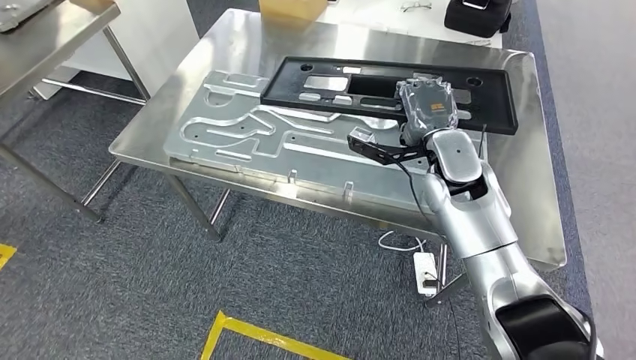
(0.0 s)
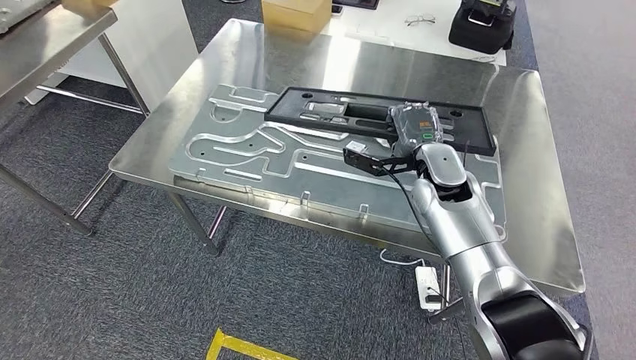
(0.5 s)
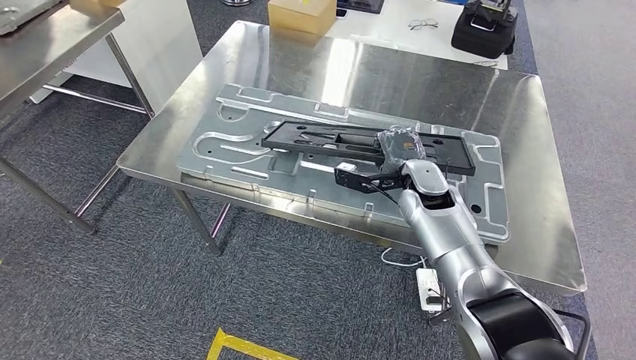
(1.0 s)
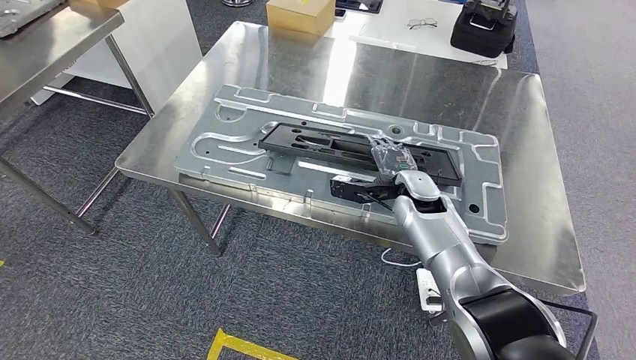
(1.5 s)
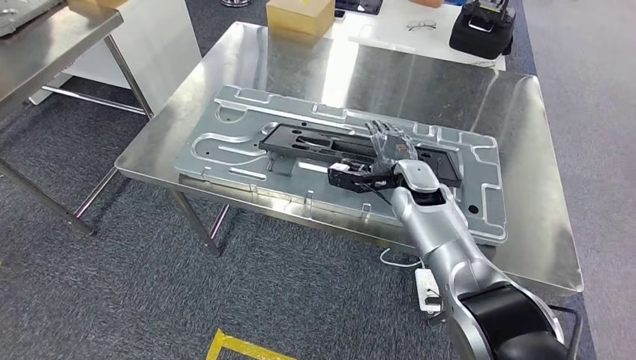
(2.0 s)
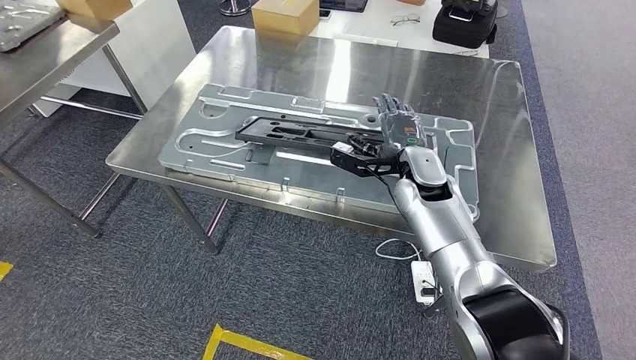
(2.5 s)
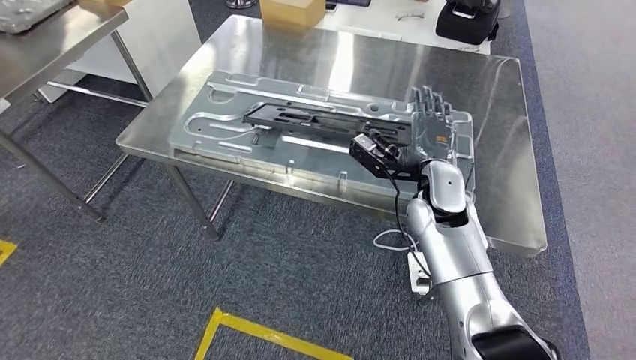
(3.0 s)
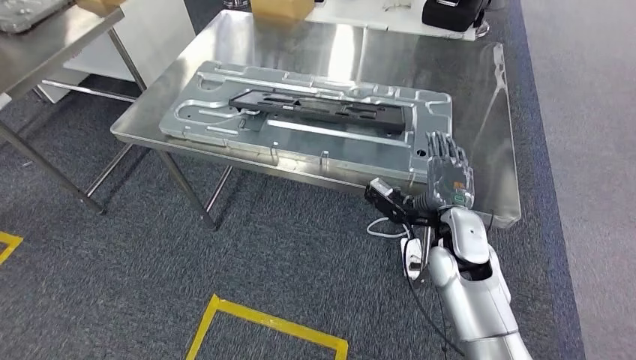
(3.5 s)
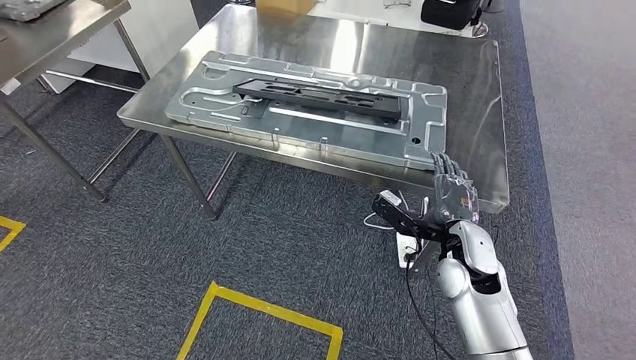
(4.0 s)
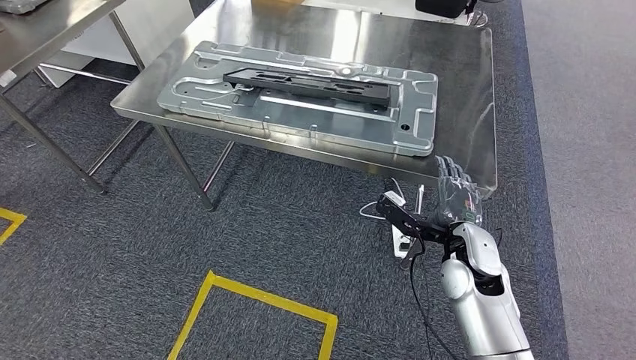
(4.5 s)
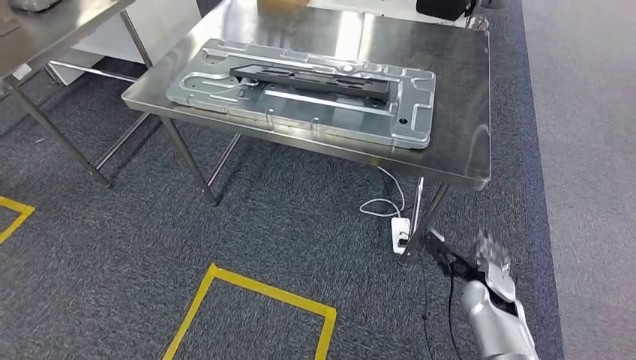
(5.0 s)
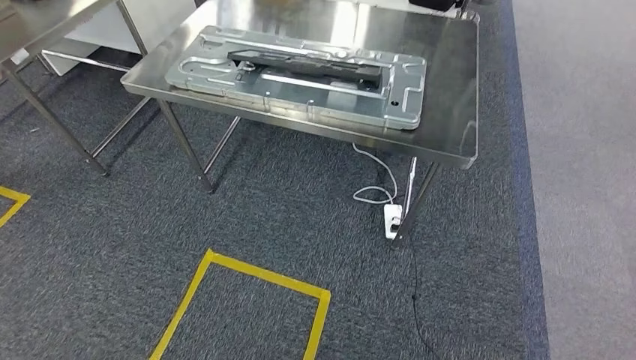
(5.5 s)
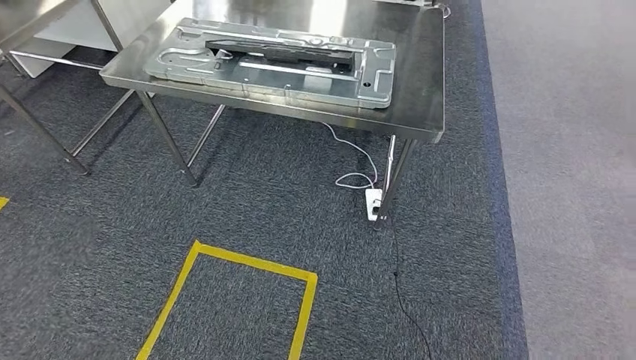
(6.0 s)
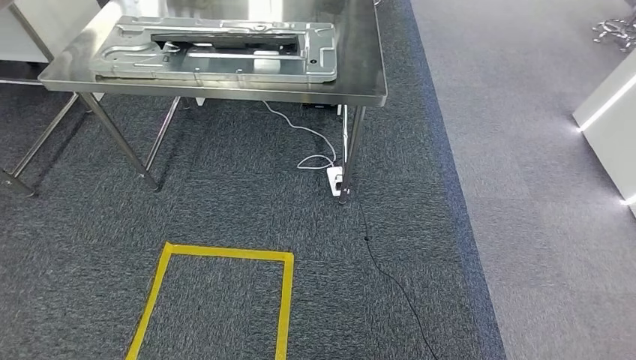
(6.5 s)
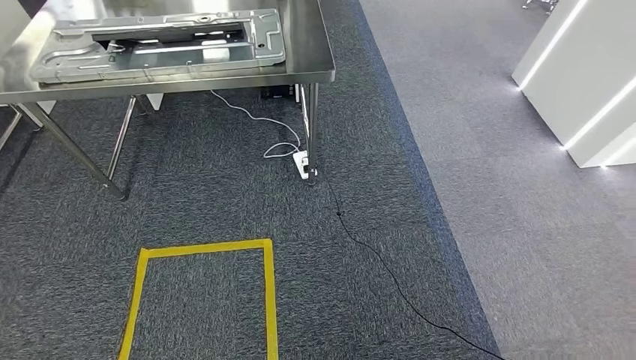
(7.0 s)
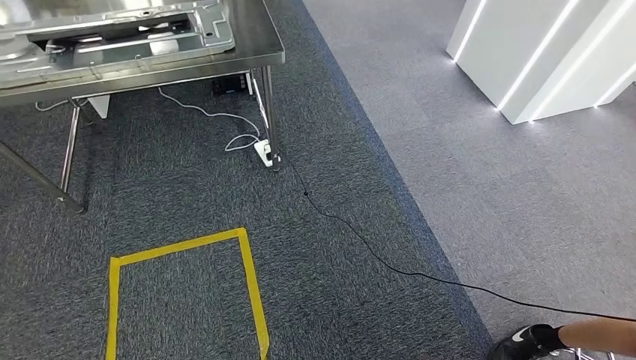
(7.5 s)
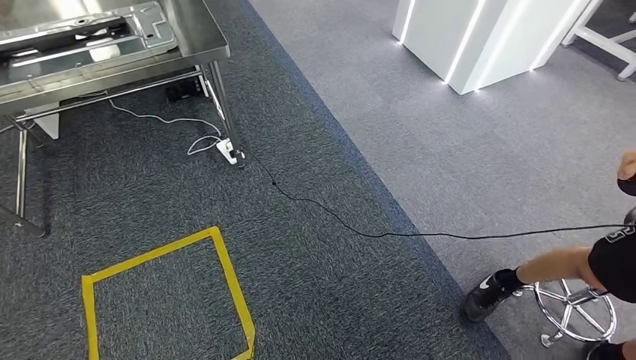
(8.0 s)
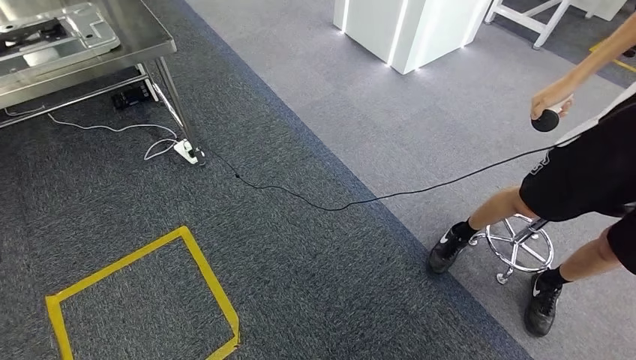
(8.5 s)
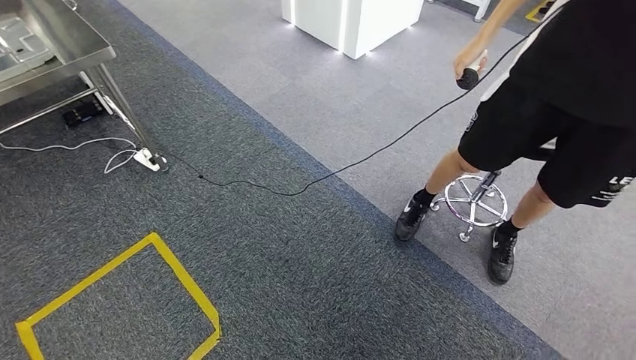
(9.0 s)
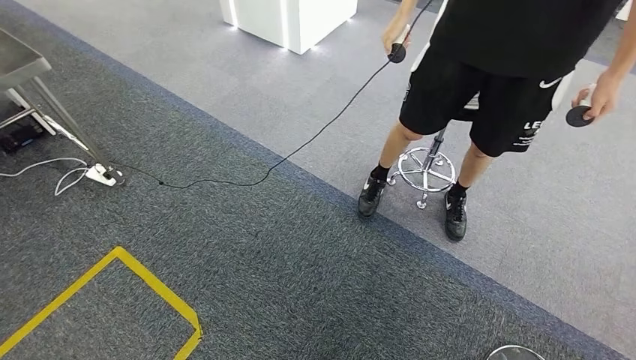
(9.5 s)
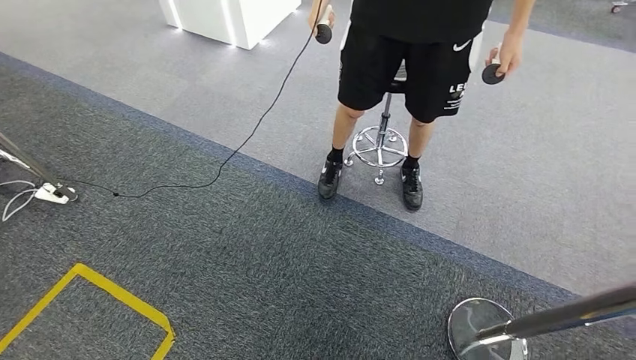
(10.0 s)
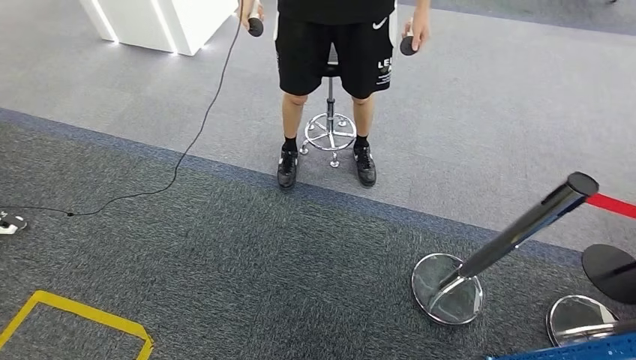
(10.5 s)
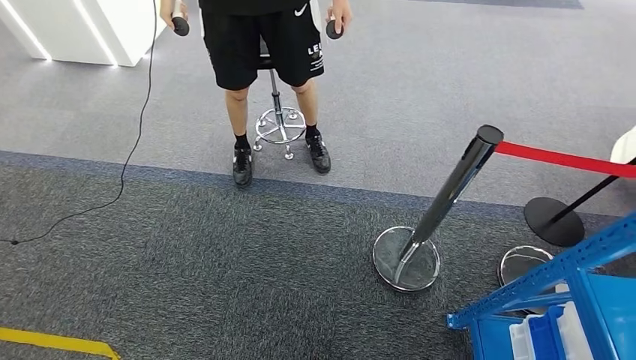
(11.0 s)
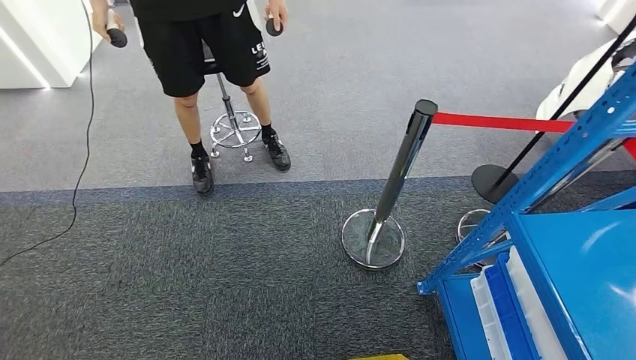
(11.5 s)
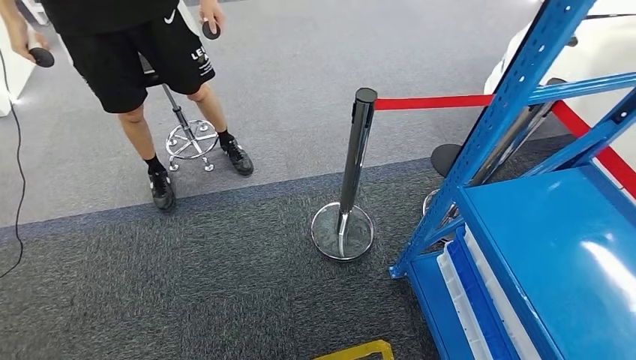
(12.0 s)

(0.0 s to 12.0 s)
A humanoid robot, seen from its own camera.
Step, 0.0 s - 7.5 s: Insert the large material into the corresponding slot on the workbench.

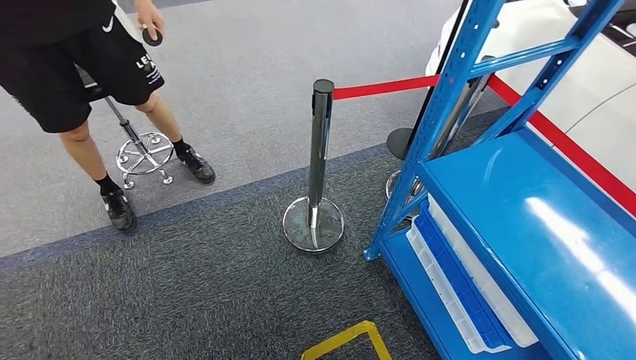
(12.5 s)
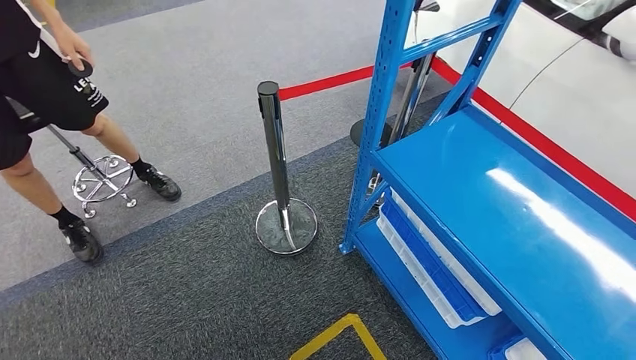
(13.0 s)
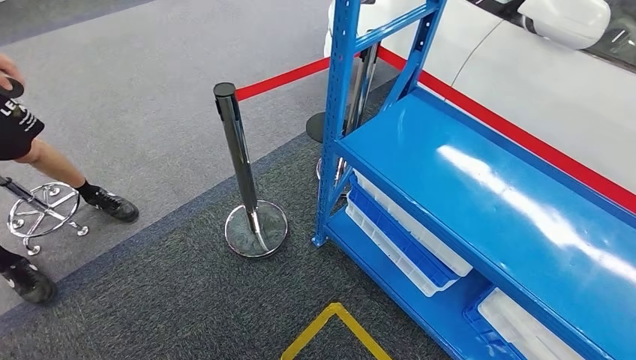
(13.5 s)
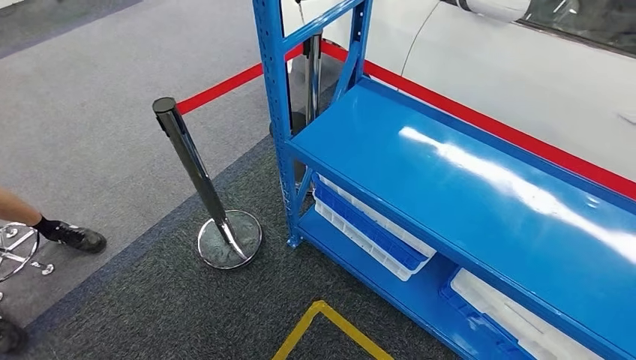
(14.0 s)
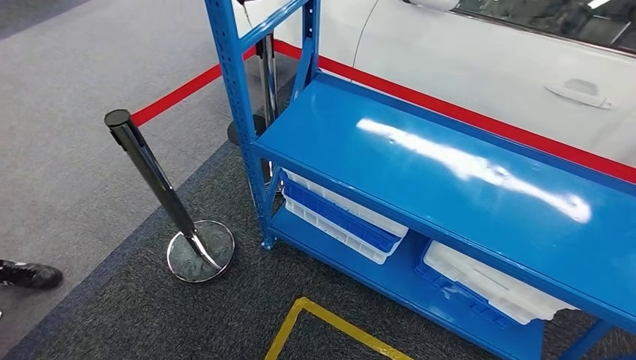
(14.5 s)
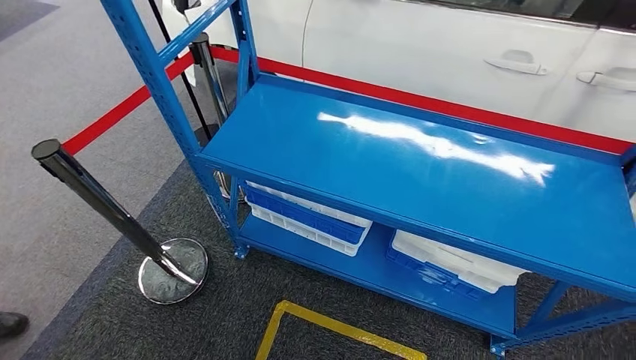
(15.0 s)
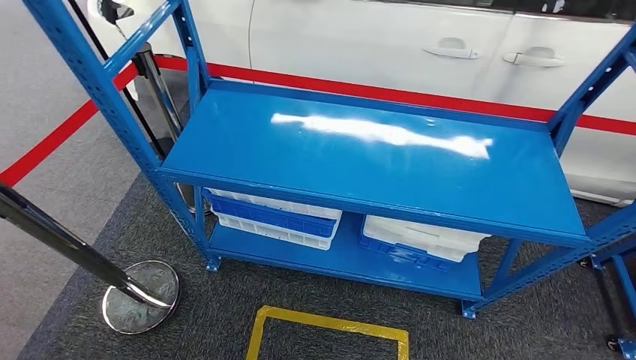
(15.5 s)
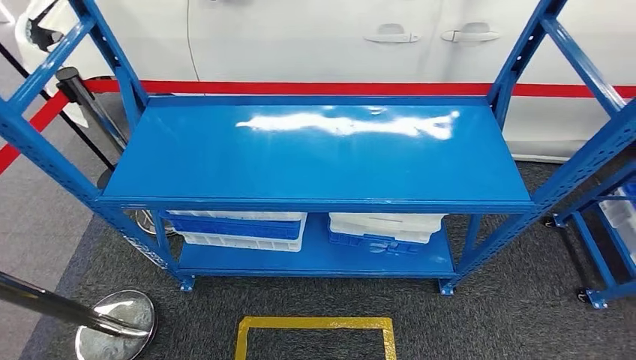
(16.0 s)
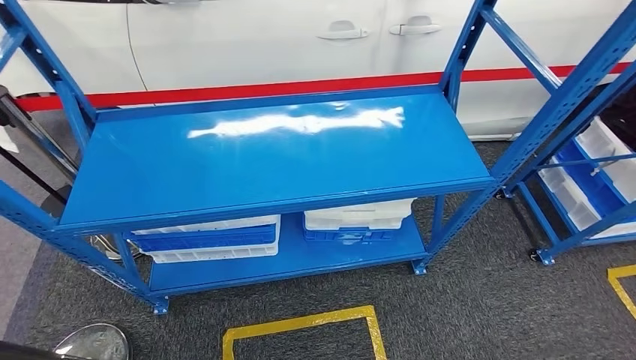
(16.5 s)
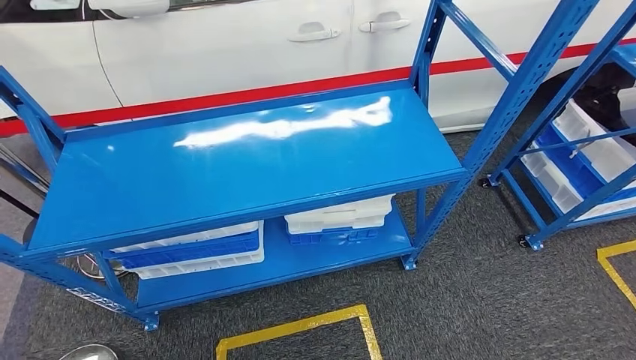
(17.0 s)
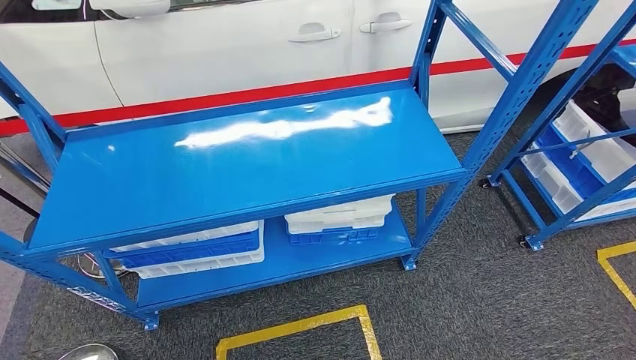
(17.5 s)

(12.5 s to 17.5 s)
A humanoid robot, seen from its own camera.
Step, 12.5 s - 17.5 s: Return to the initial position at the shelf.

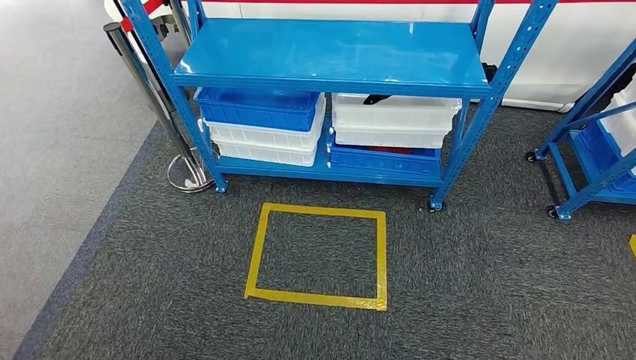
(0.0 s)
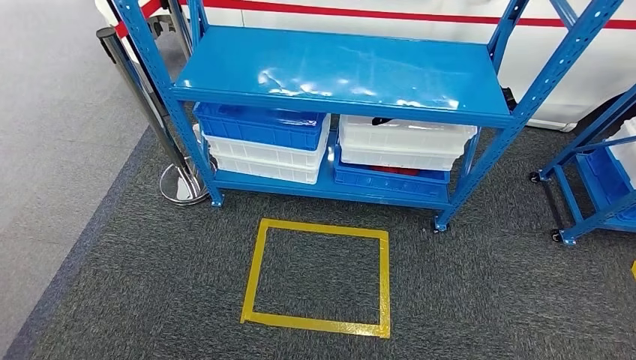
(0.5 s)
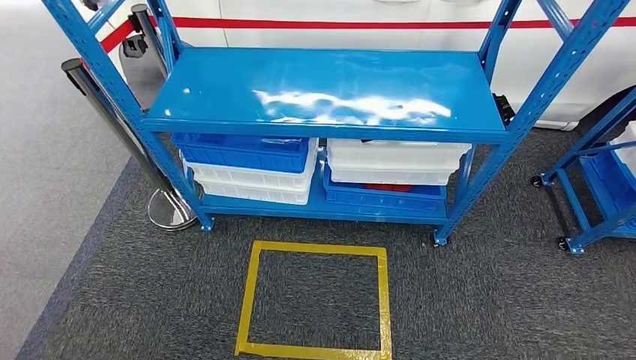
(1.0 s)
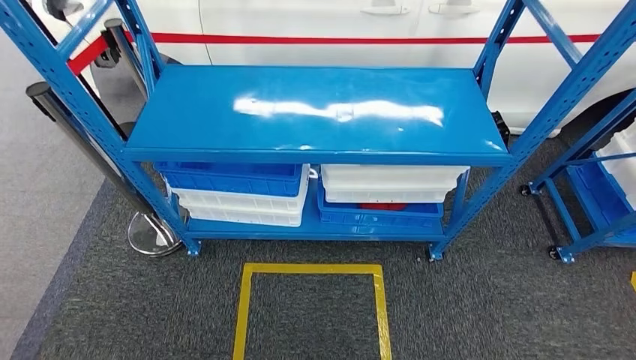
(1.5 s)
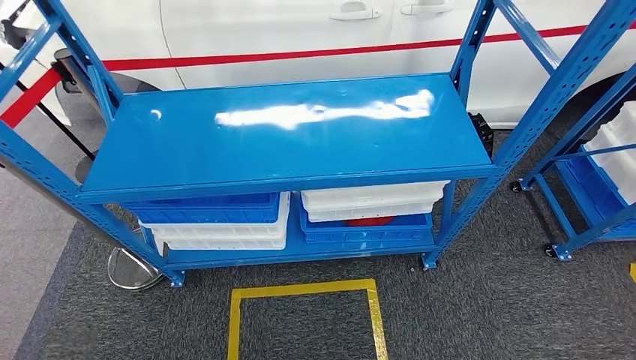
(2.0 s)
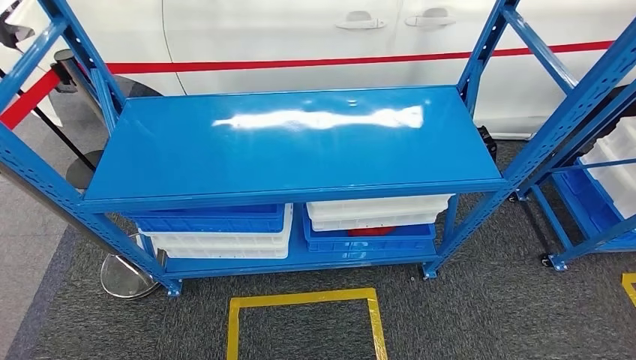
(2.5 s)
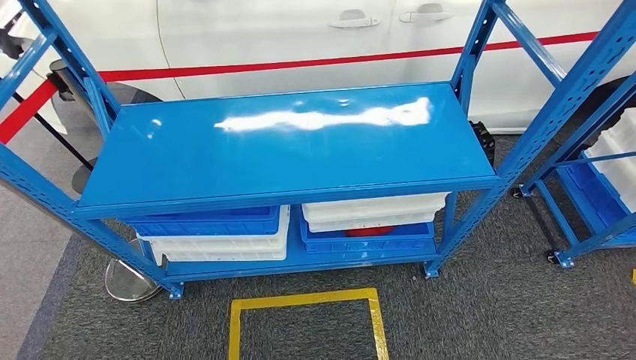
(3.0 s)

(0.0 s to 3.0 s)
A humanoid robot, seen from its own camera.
Step, 0.0 s - 3.0 s: Return to the initial position at the shelf.
